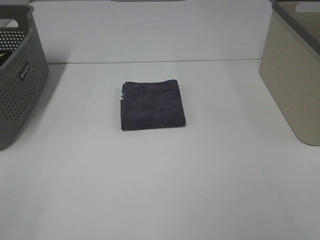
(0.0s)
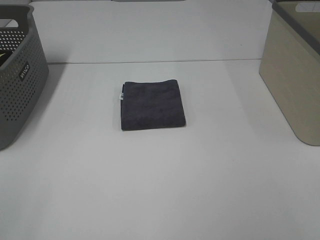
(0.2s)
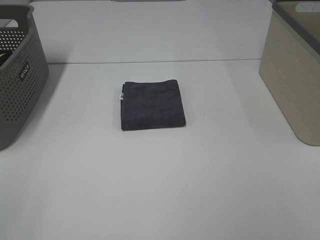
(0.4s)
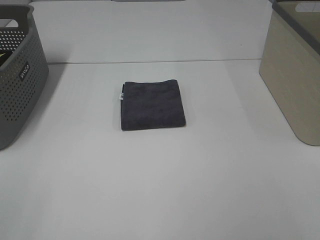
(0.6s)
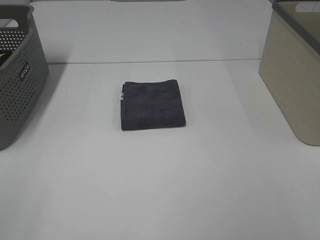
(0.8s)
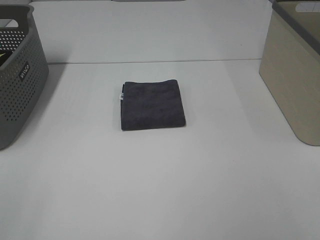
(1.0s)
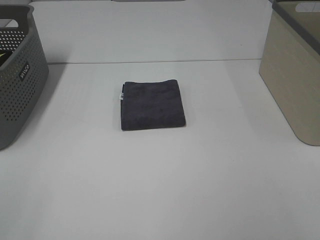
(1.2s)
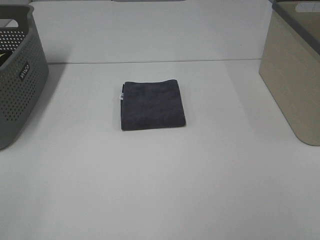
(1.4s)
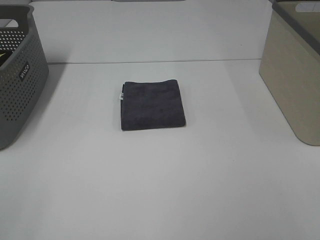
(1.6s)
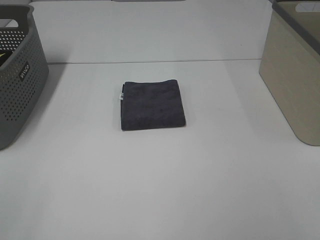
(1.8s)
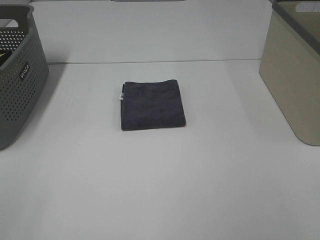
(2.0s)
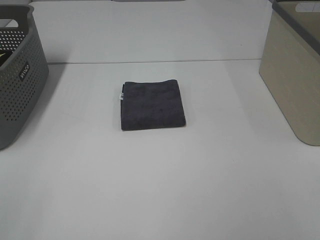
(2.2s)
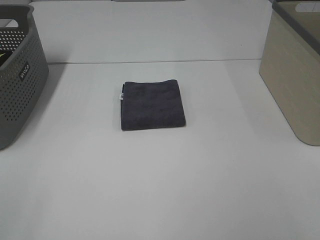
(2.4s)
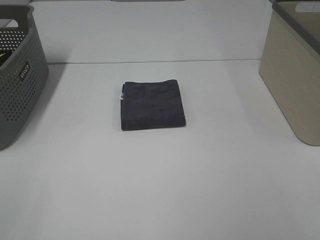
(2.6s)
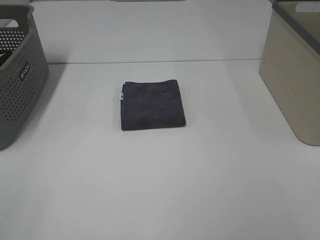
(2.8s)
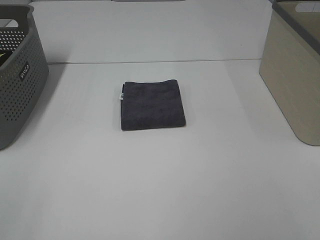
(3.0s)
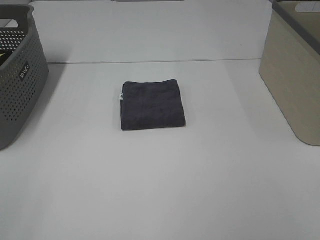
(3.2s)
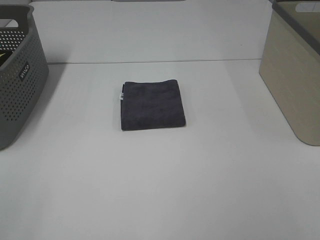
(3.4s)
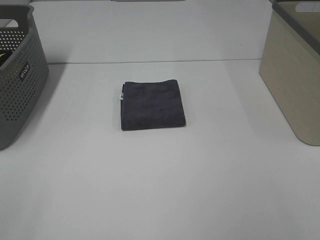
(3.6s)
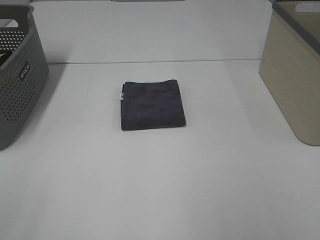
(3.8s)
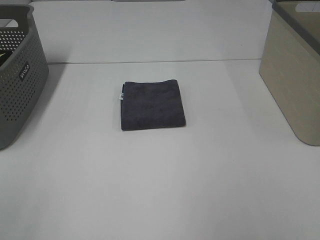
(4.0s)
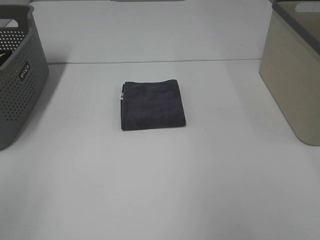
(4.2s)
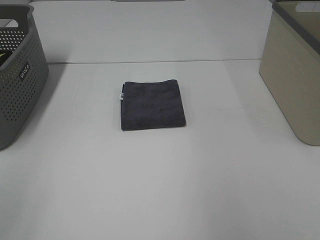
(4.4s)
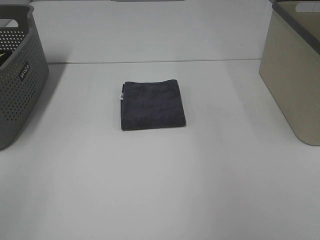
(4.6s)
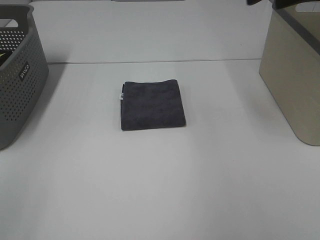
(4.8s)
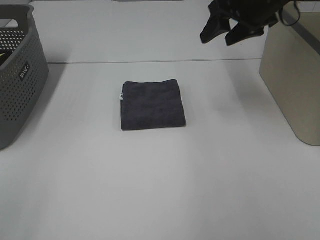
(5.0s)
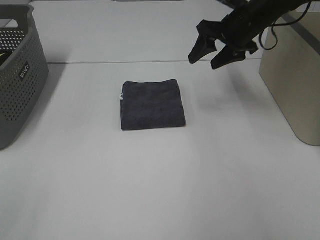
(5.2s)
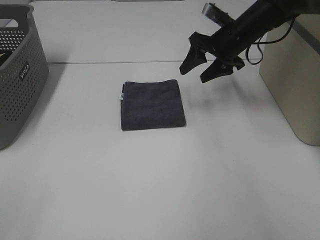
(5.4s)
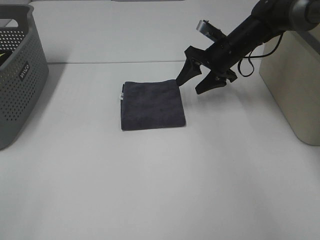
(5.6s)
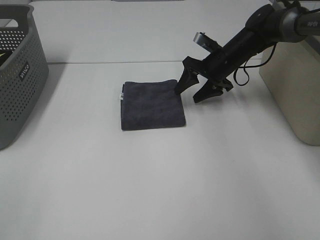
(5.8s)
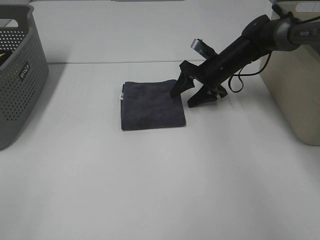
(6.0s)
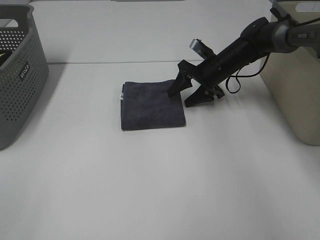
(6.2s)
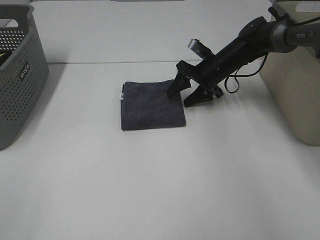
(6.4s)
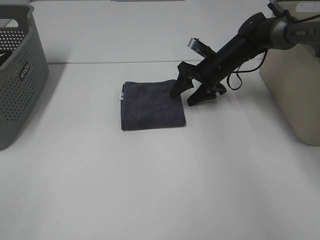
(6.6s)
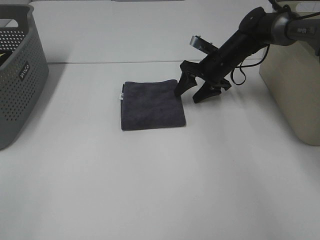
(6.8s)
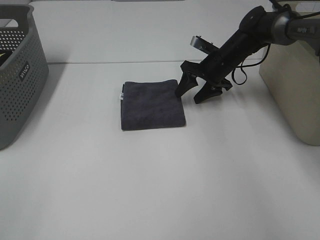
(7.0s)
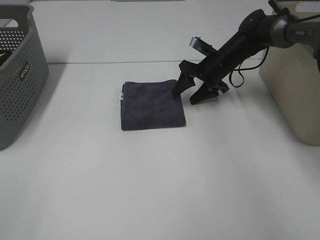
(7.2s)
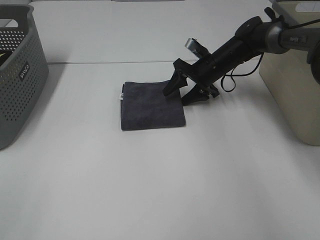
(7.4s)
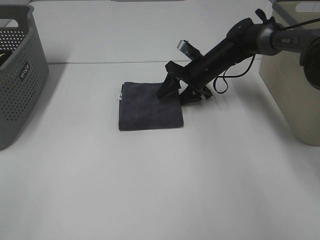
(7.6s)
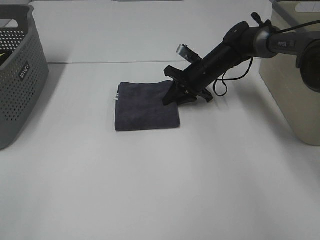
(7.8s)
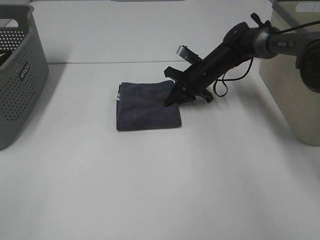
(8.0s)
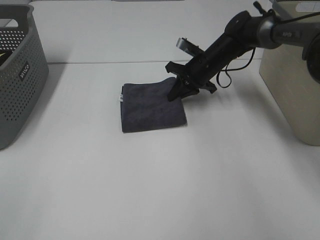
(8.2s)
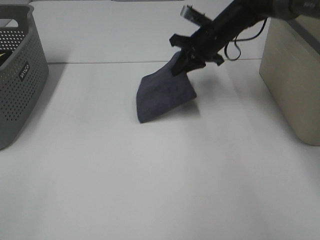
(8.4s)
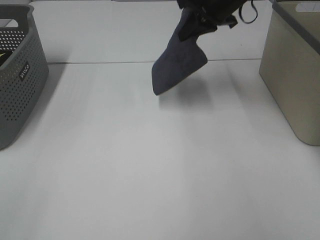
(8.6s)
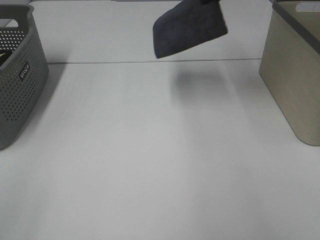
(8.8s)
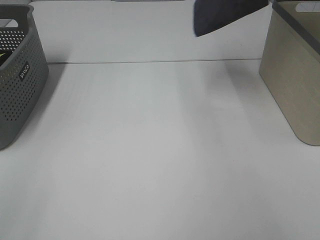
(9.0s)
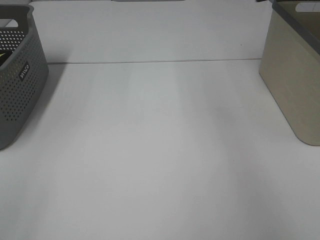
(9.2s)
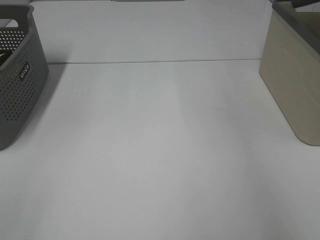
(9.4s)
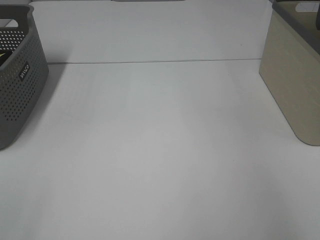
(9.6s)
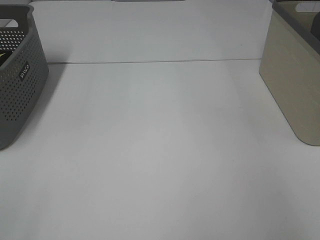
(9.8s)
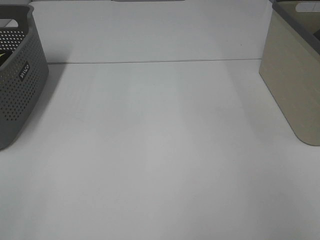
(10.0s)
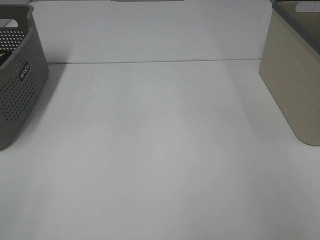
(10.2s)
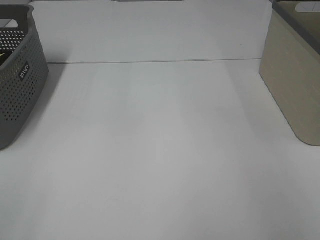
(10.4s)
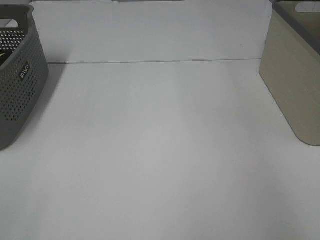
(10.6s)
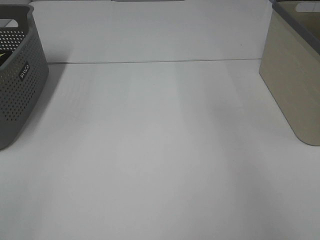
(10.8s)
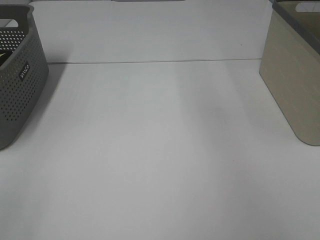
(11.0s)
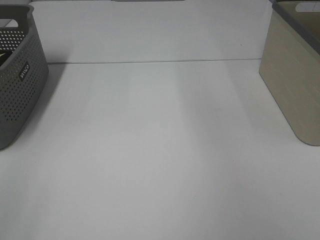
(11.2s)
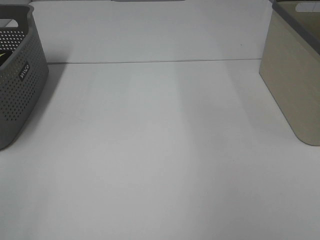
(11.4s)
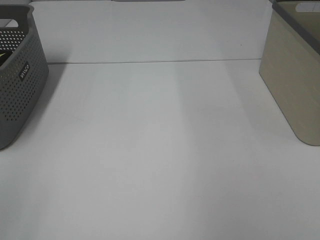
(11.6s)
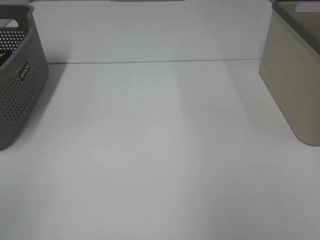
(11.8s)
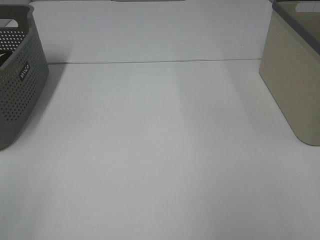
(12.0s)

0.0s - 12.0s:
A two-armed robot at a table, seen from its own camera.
Step, 0.0s - 8.2s: Right hand: grab the folded grey towel.
Step, 8.4s - 10.4s: Right hand: place the grey towel in right basket.
0.0s - 3.0s: Neither gripper changes place.
4.4s - 6.0s: The right gripper shifts roughly 40 cm downward, forward and to the left.
6.0s - 7.6s: The grippers move only a little.
7.6s - 9.0s: The right gripper moves upward and to the right, some 35 cm, and closes.
9.0s - 10.4s: The right gripper is displaced to the right by approximately 15 cm, and opens its fingers.

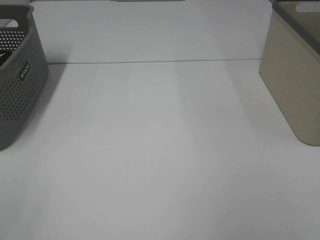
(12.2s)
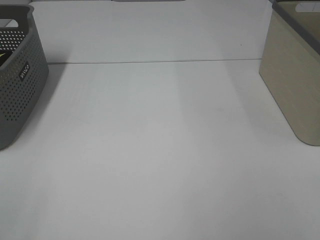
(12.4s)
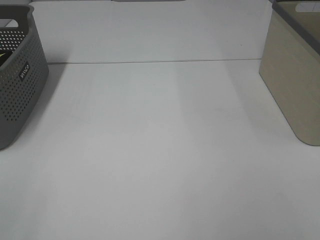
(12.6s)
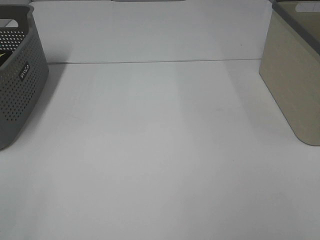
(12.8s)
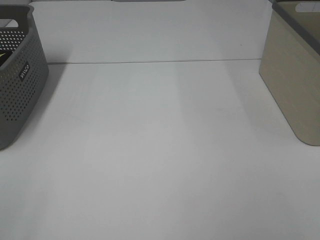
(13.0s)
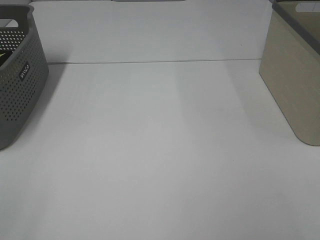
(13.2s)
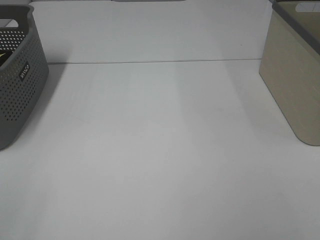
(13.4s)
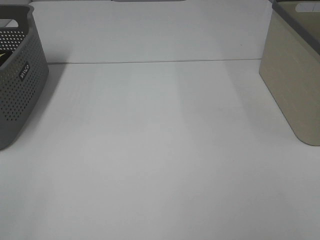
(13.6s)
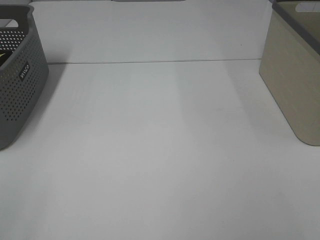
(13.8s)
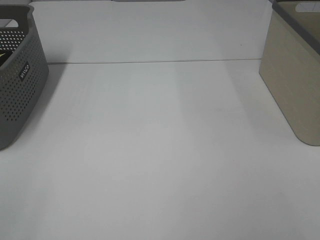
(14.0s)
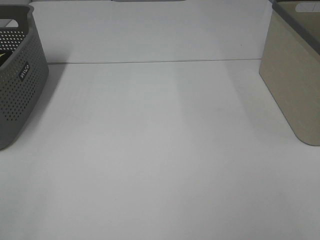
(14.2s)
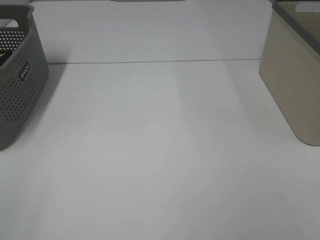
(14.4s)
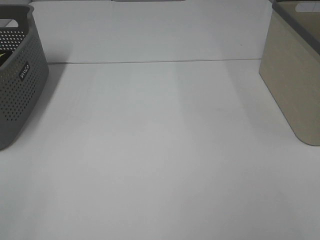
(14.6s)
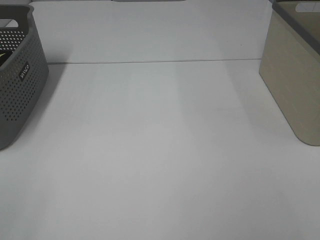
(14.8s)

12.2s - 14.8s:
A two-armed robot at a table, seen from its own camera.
13.4s - 14.8s: The two grippers keep their place.

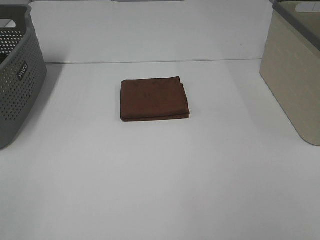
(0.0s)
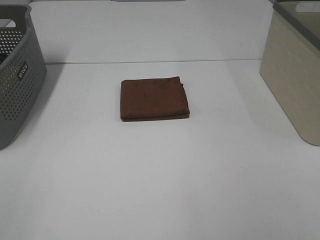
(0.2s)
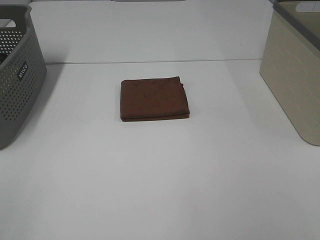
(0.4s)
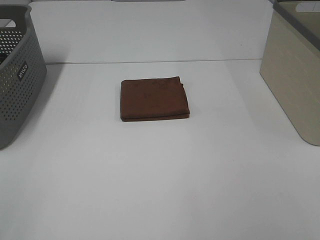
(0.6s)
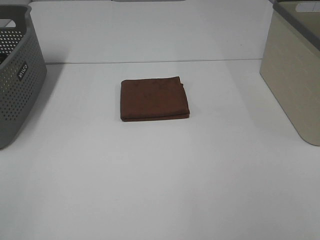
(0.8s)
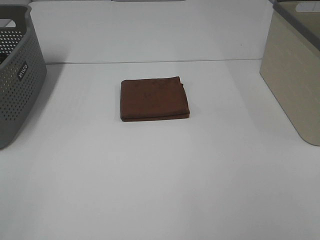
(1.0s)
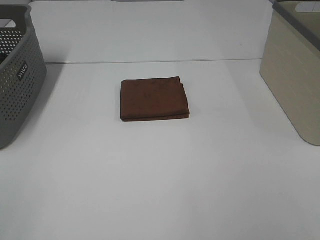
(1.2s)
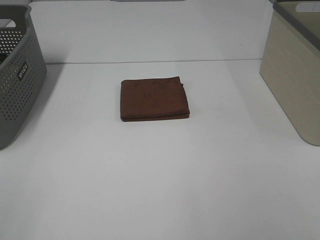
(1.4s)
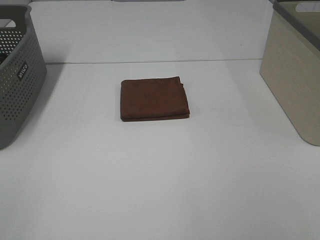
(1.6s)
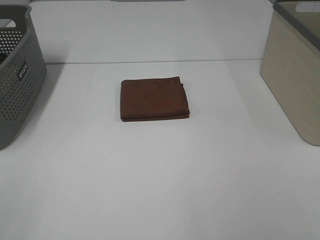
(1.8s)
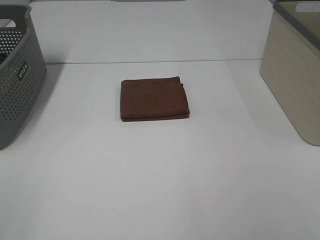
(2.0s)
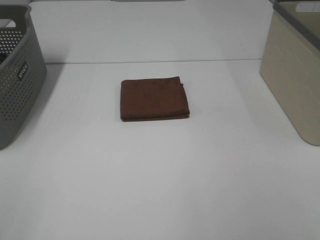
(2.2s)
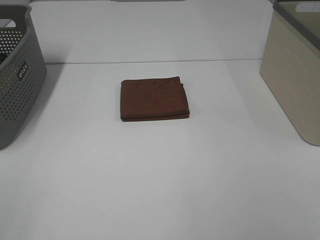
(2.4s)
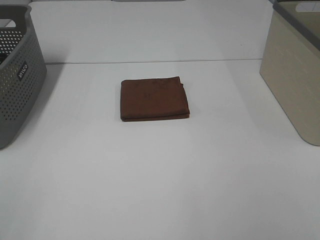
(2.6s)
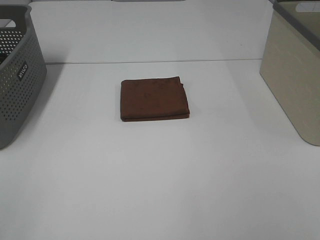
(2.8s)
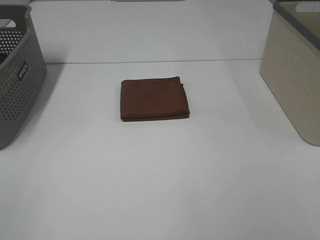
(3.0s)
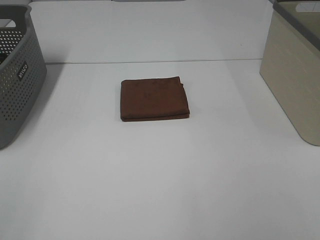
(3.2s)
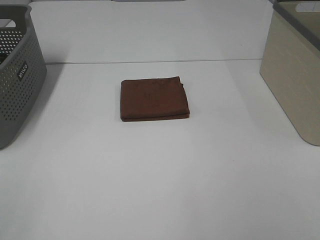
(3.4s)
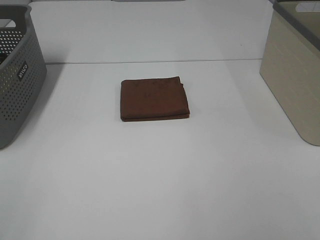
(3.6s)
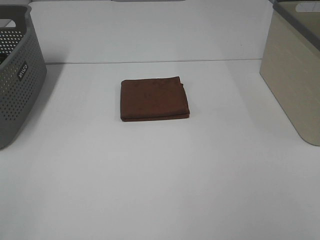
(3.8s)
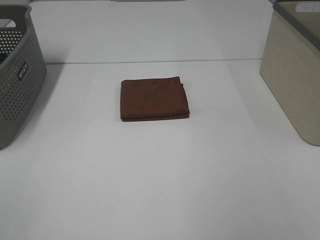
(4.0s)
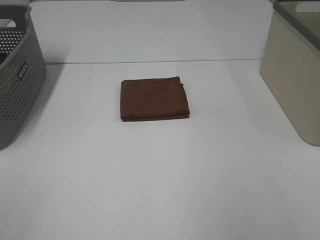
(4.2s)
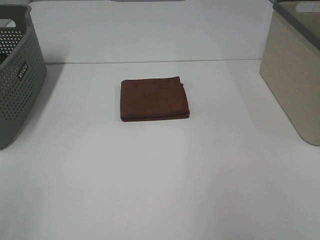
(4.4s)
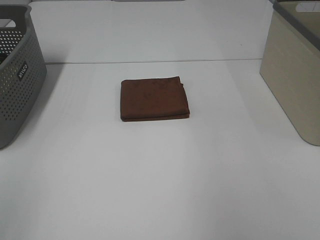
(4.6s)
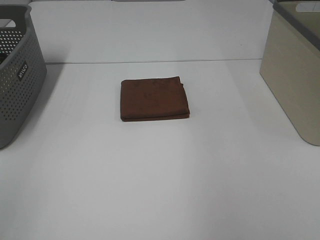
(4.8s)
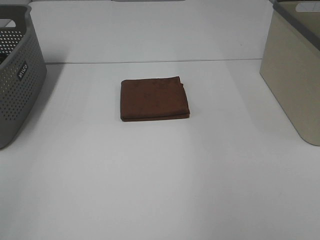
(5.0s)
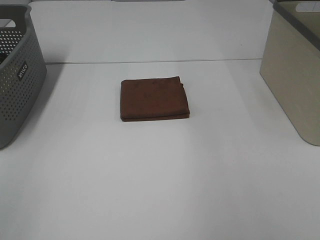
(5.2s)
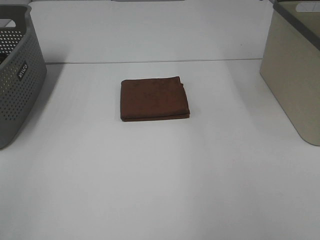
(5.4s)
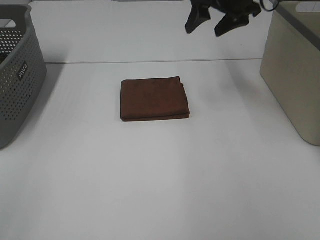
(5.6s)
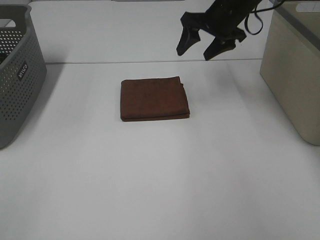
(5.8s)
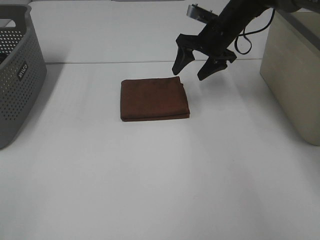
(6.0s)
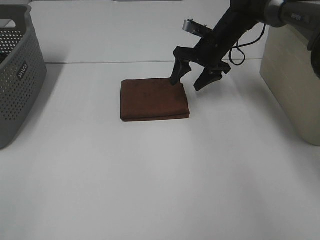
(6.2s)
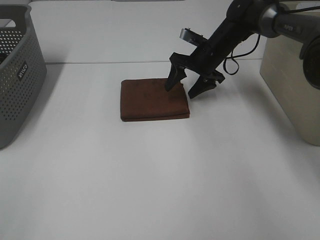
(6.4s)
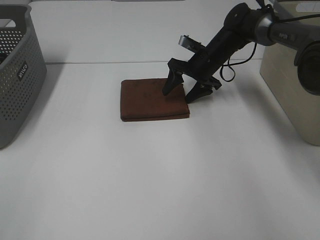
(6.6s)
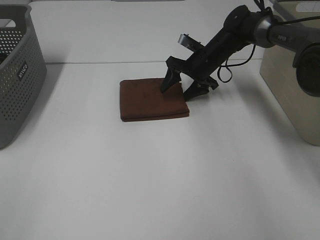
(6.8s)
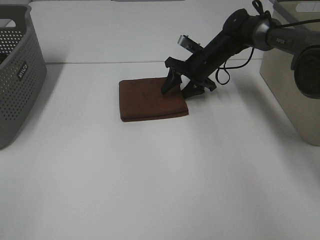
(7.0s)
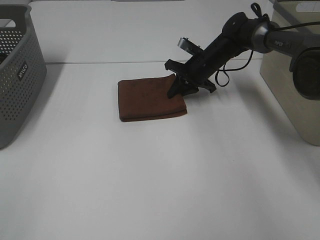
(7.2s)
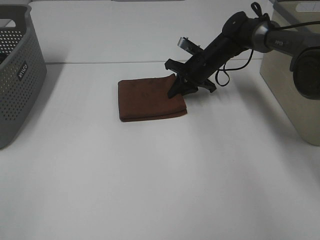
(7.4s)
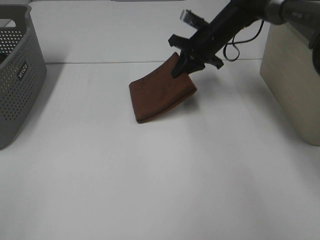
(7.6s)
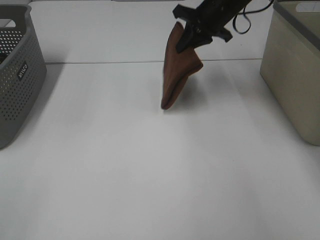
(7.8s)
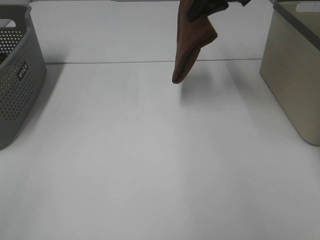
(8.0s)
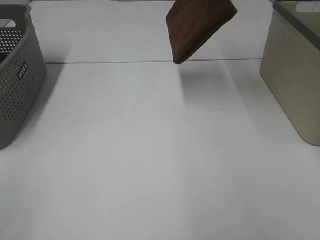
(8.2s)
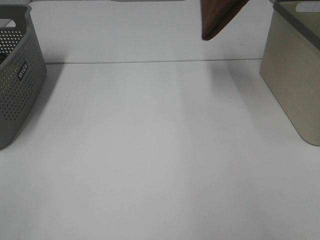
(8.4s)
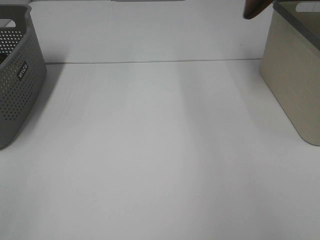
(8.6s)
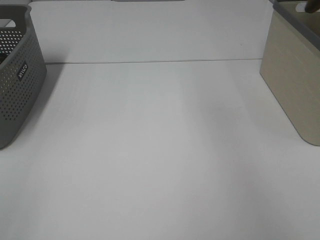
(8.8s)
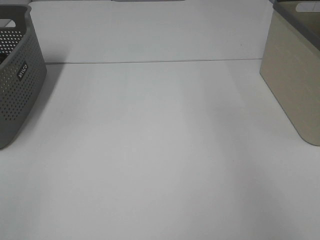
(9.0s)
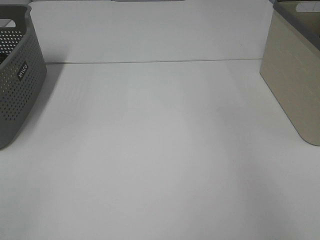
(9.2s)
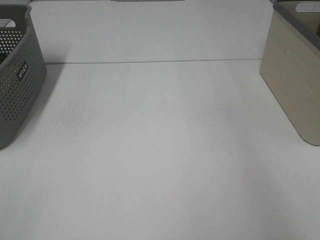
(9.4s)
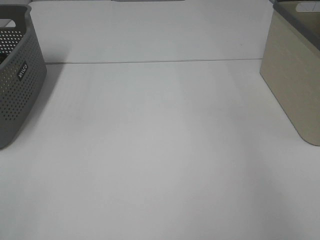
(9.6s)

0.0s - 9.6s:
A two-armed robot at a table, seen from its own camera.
Step, 0.0s - 7.4s: Right hand: grab the folded brown towel.
0.0s - 3.2s: Neither gripper changes place.
4.8s - 6.4s: The right gripper is displaced downward, forward and to the left by some 40 cm.
6.4s - 8.0s: The right gripper goes roughly 20 cm upward, and closes.
8.0s - 9.6s: The right gripper travels to the right by roughly 25 cm, and opens up.
